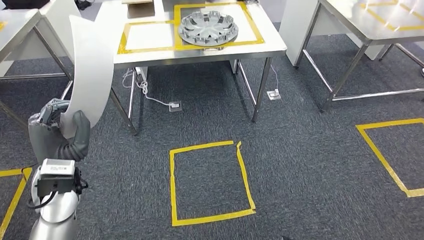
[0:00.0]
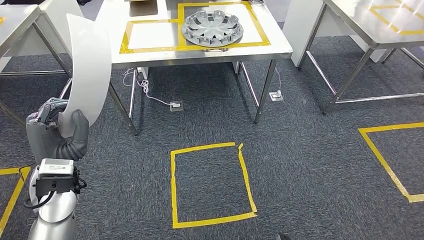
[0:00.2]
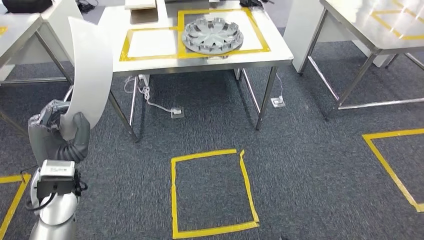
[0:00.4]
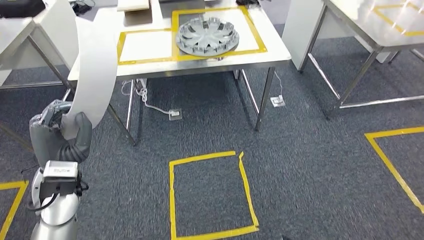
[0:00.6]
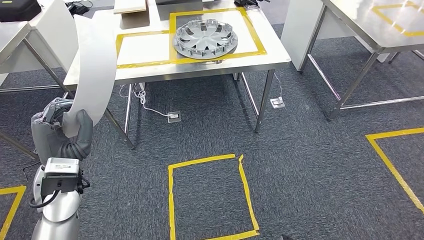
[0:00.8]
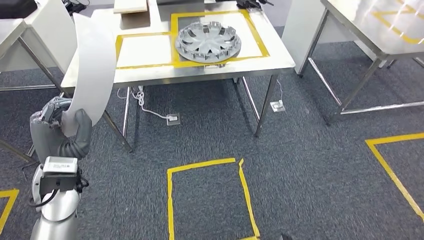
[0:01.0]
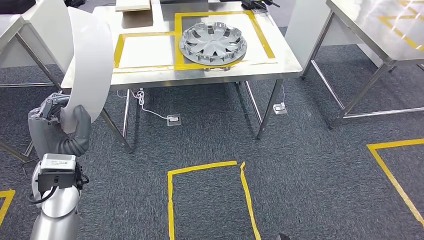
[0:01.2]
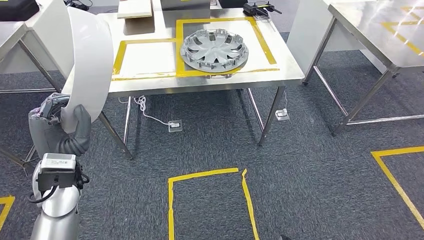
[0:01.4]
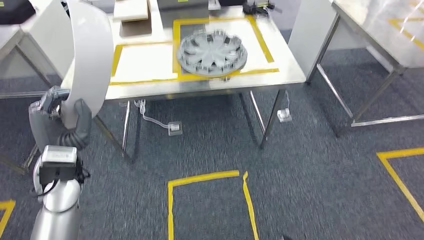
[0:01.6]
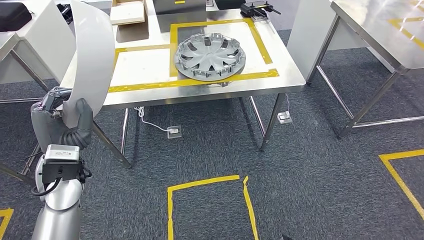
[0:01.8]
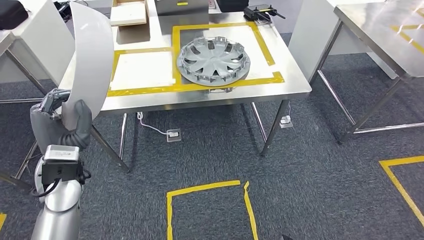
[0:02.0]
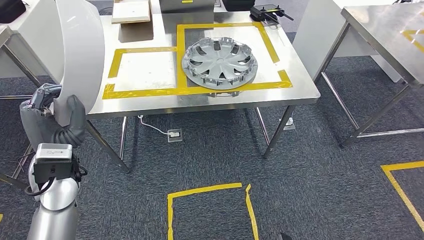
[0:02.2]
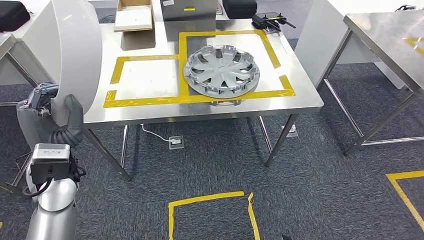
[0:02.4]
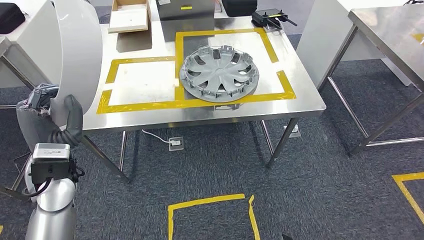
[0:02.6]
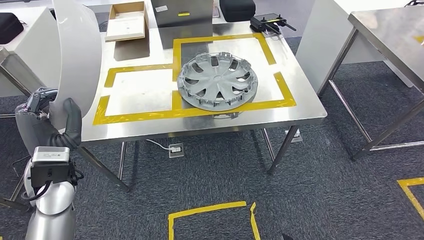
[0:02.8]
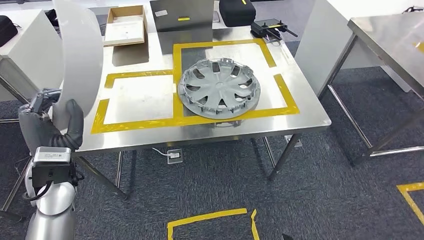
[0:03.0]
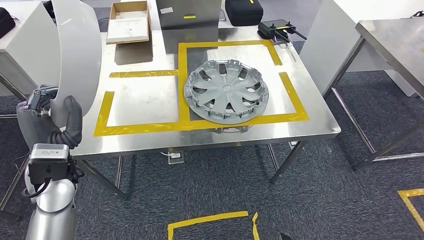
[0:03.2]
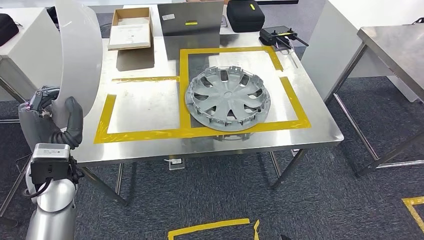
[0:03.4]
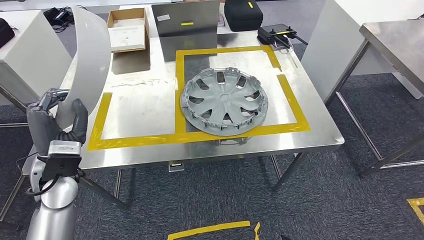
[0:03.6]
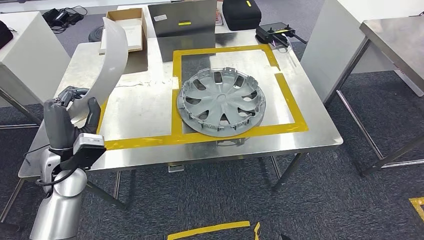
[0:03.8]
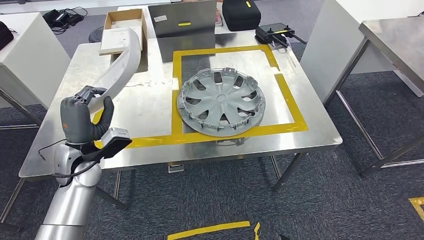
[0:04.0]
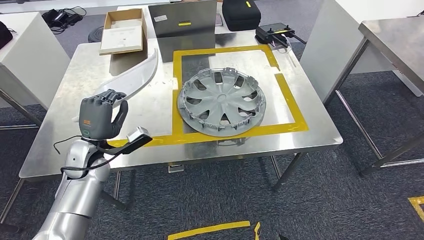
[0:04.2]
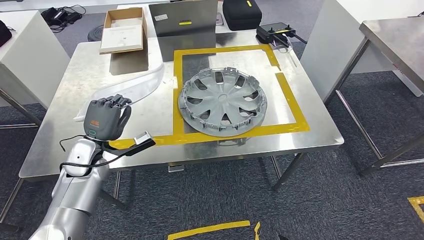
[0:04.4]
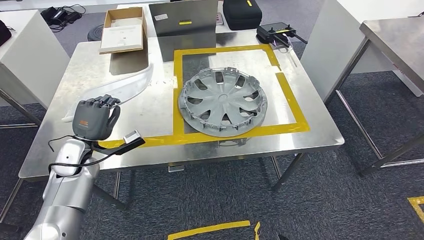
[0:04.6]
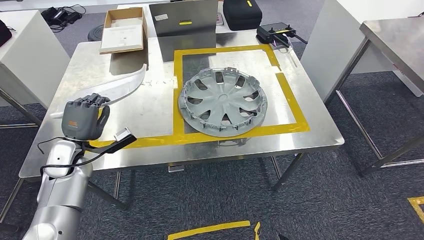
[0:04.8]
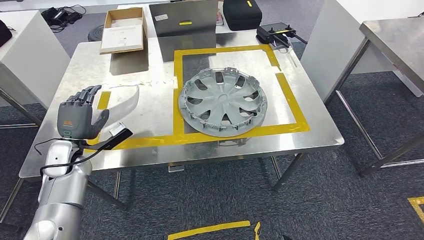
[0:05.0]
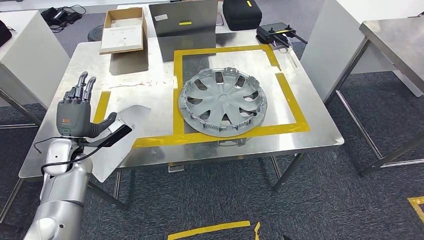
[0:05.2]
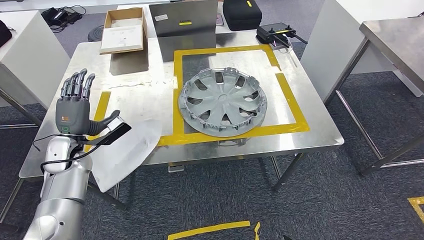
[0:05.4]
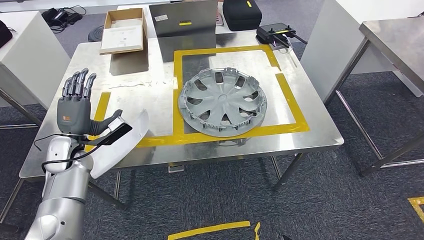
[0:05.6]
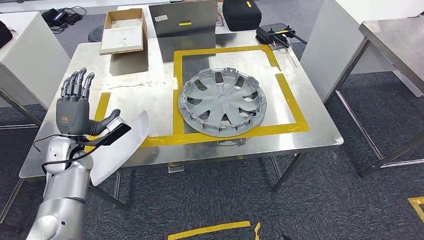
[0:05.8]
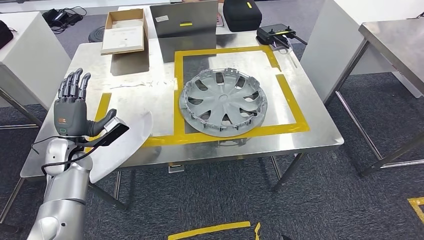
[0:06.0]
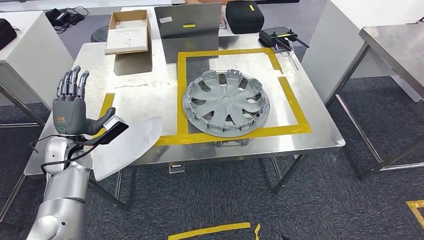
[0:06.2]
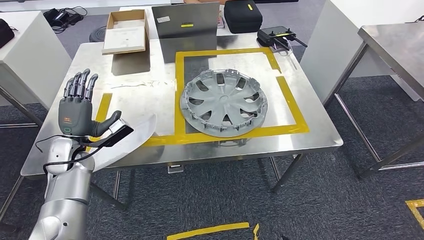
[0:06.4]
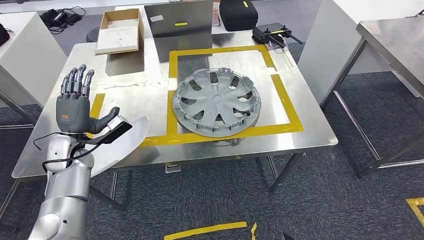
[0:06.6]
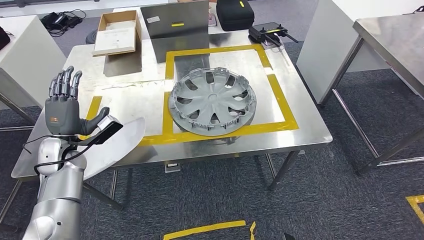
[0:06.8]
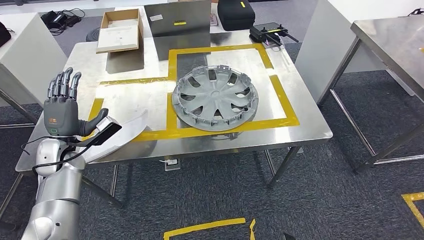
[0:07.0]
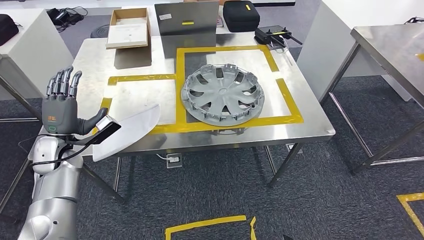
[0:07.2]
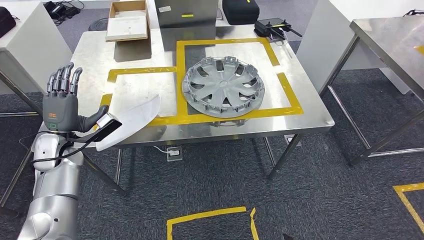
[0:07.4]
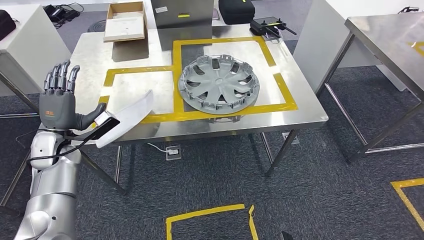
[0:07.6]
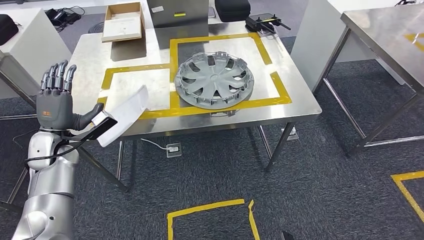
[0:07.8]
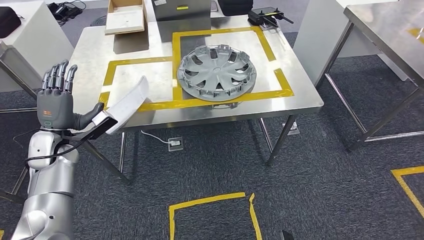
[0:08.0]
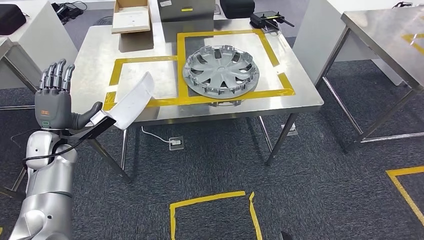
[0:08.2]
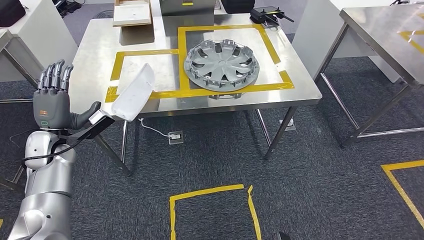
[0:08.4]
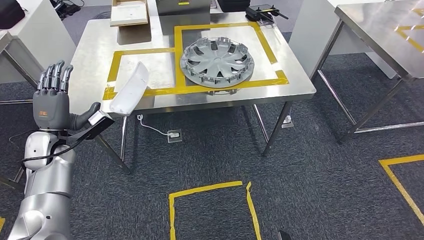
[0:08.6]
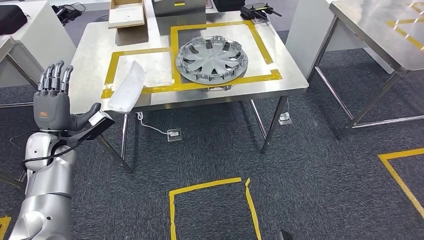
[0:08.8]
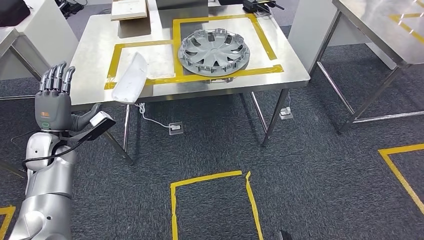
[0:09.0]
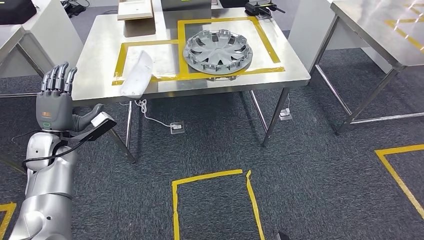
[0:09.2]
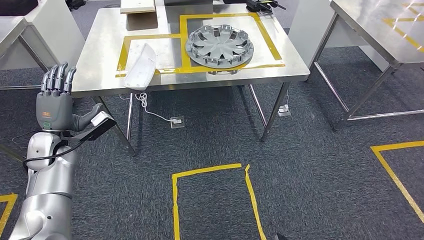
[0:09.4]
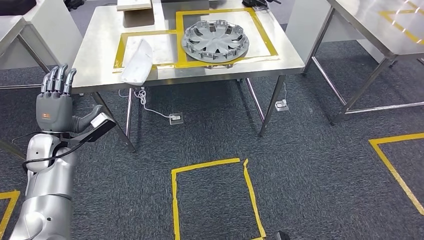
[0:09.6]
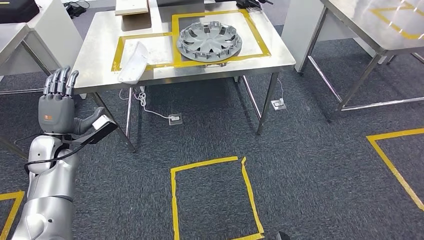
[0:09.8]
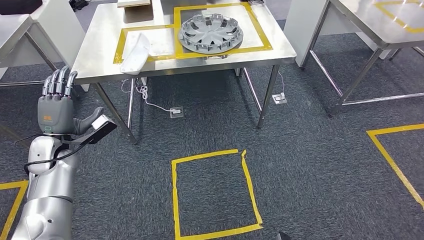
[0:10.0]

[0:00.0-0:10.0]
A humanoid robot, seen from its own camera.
Step, 0:00.0 to 0:03.4: Move the small parts to the workbench.
Step, 0:03.6 to 0:06.8: Insert the small parts into the corresponding slots on the workbench.
0:04.2 to 0:05.8: The left hand is displaced to the left by approximately 5 cm.

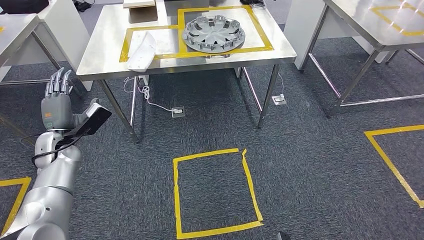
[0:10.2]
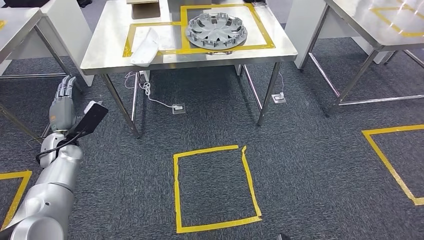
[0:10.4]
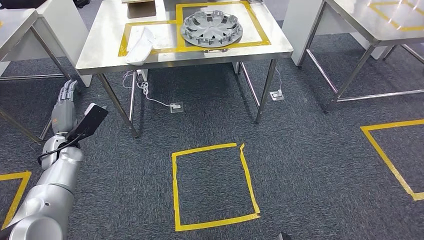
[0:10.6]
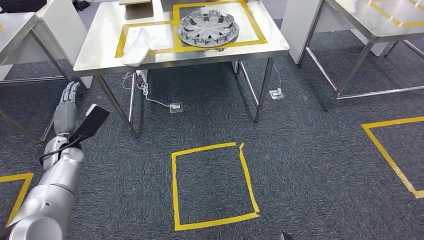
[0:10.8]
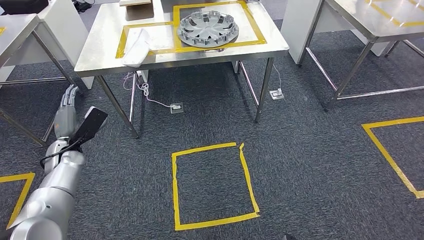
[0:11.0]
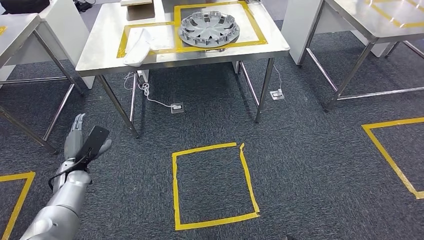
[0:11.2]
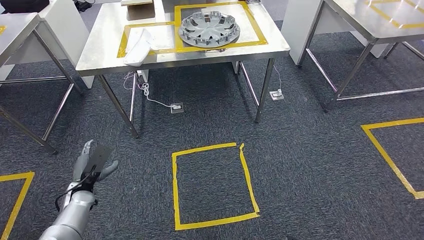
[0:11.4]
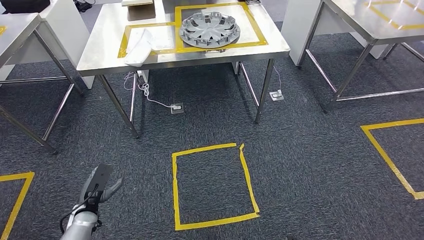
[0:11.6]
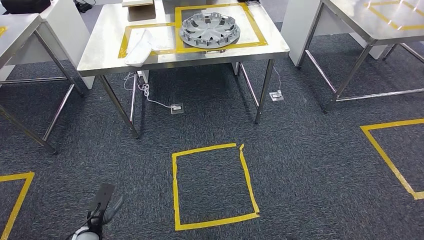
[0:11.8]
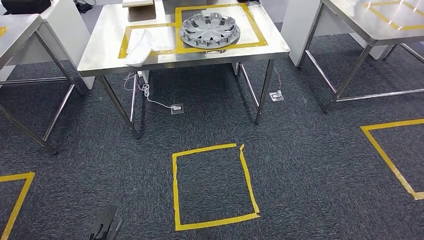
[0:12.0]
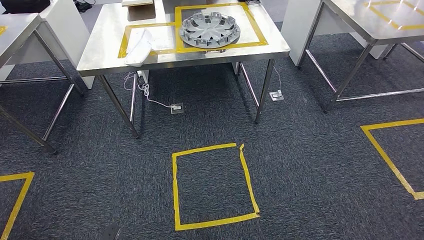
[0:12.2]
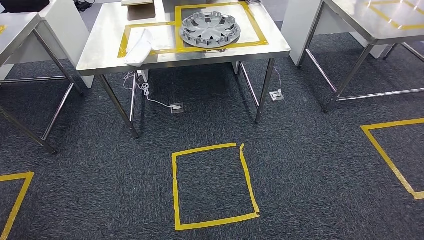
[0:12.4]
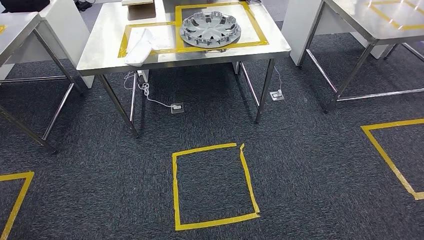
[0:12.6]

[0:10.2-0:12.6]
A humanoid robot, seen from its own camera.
Step, 0:10.2 to 0:12.6: Return to the initial position at the workbench.
0:11.4 to 0:12.6: The left hand is displaced backward and downward by roughly 35 cm.
